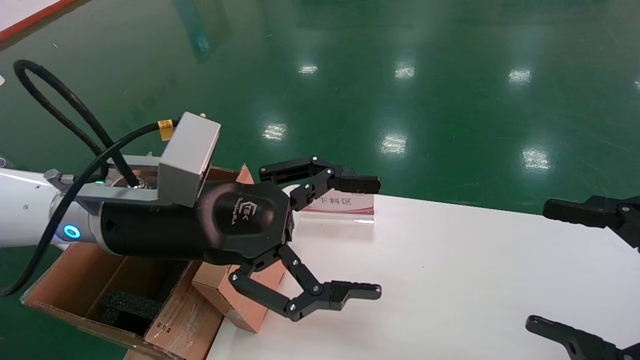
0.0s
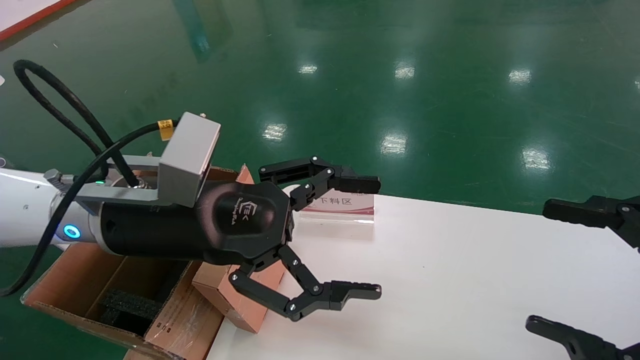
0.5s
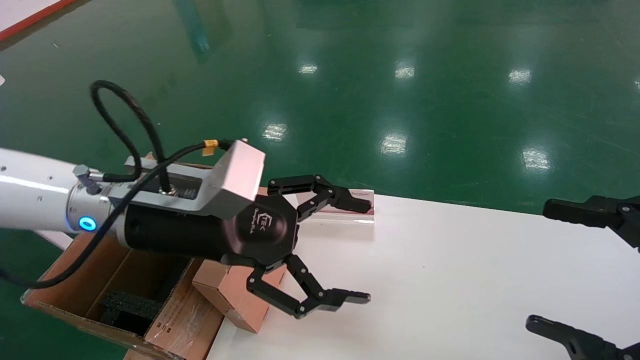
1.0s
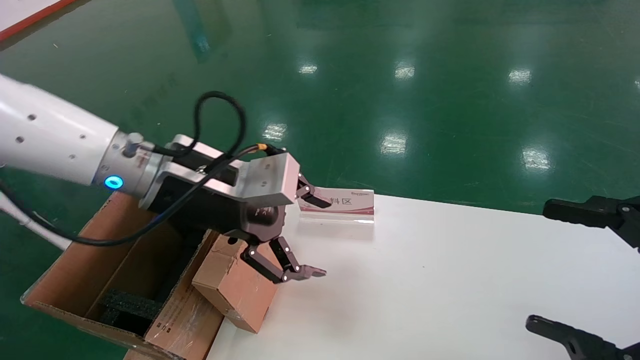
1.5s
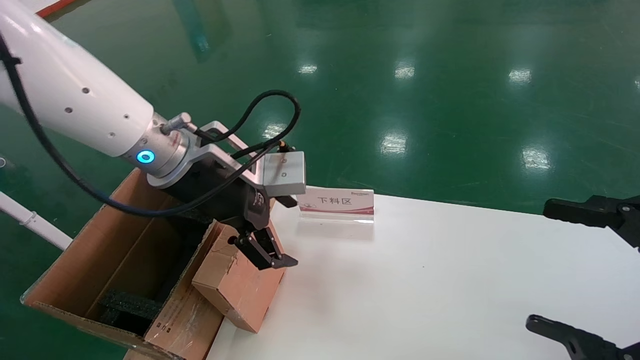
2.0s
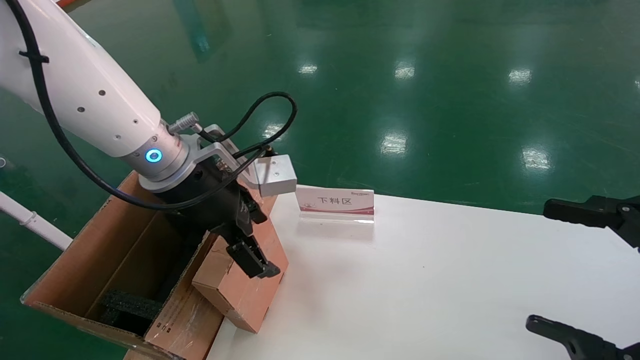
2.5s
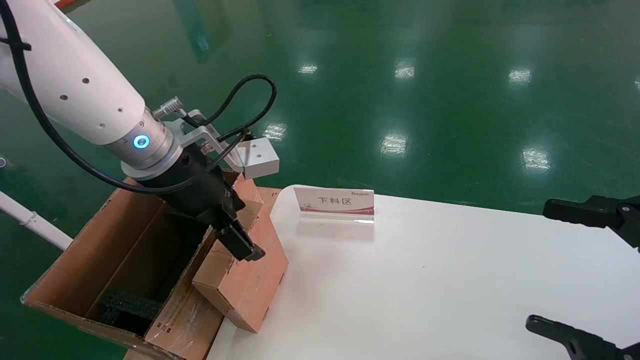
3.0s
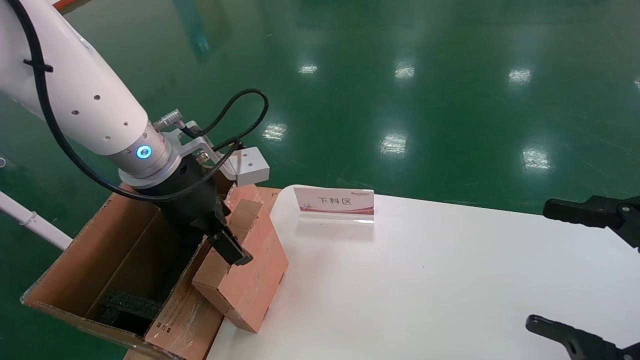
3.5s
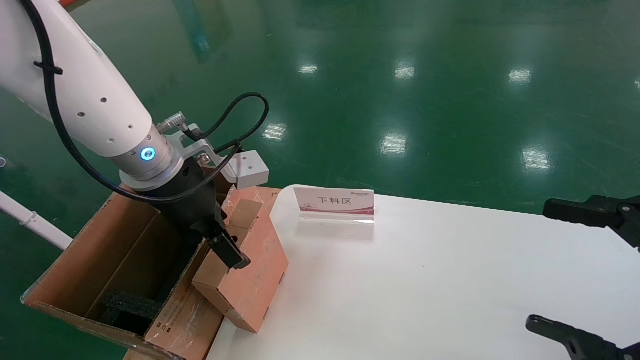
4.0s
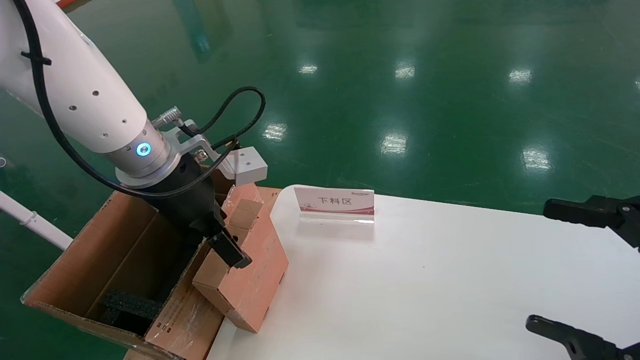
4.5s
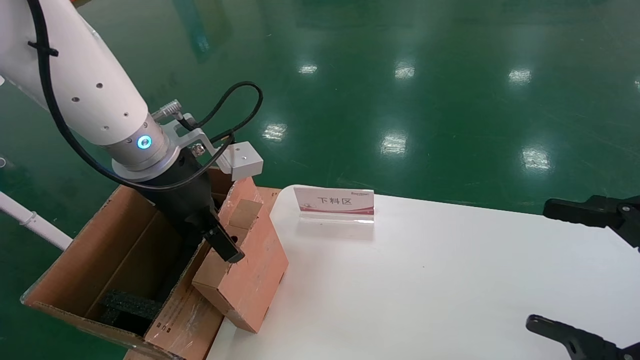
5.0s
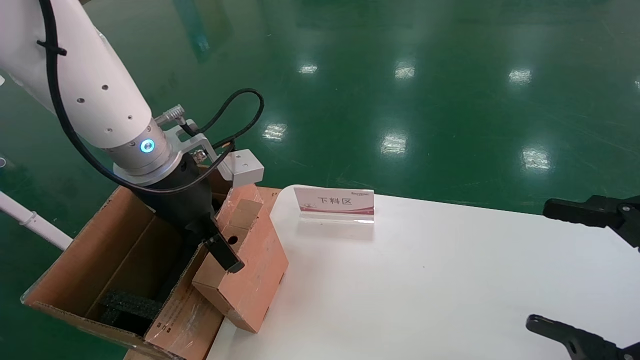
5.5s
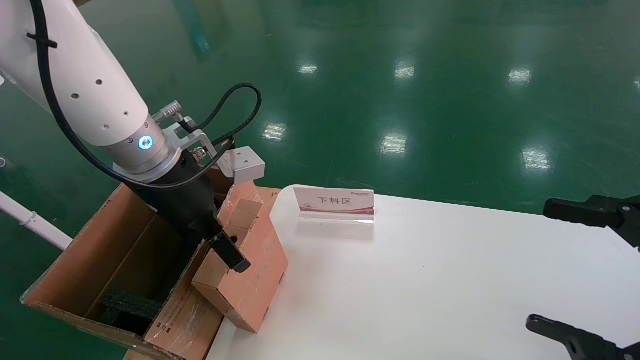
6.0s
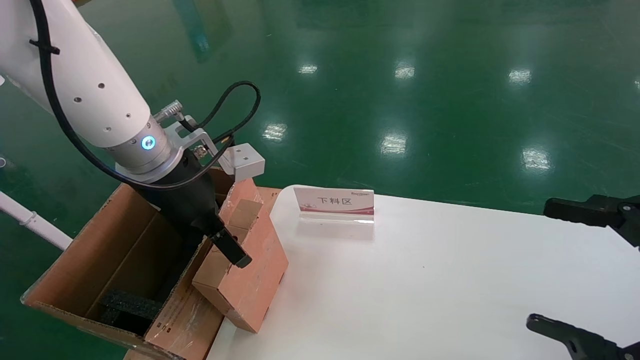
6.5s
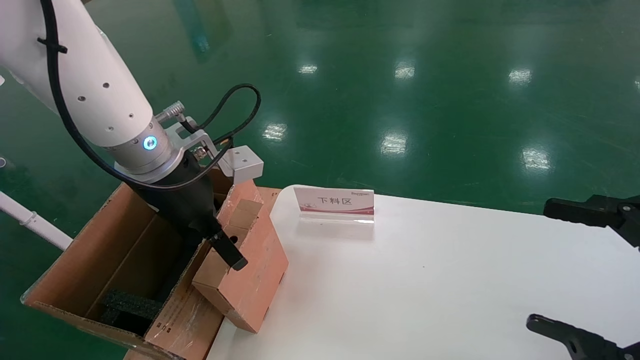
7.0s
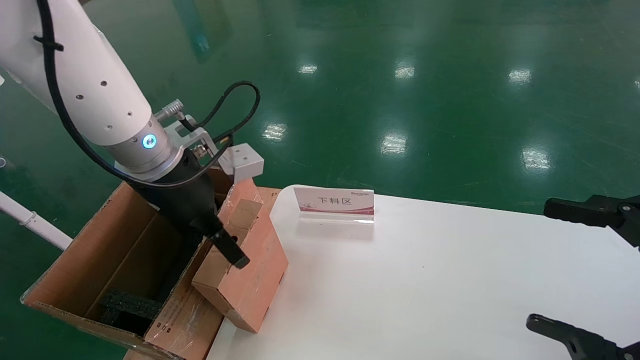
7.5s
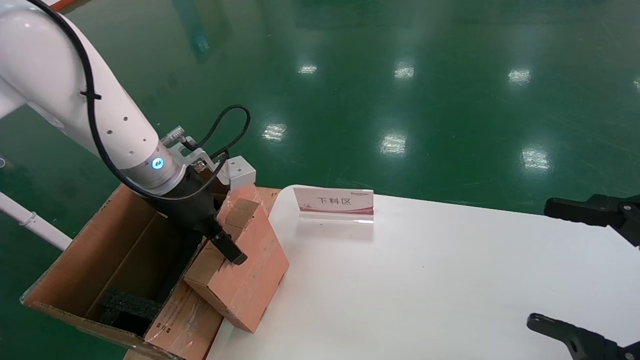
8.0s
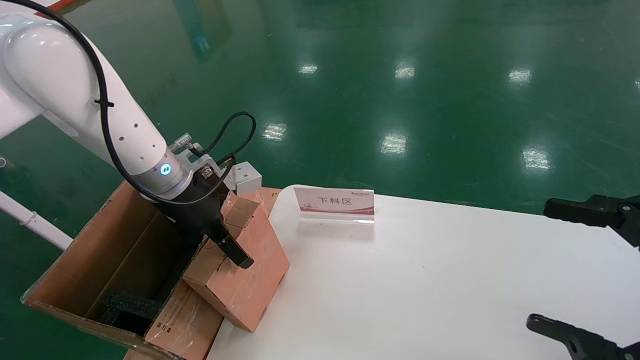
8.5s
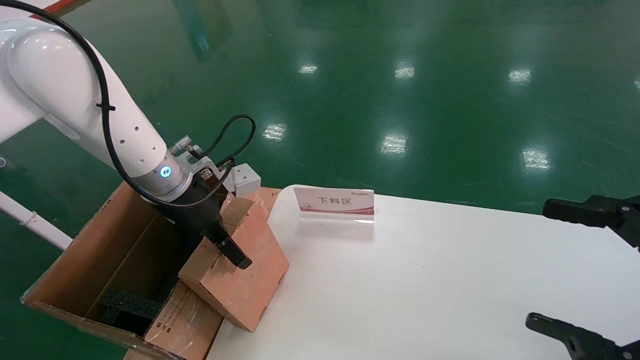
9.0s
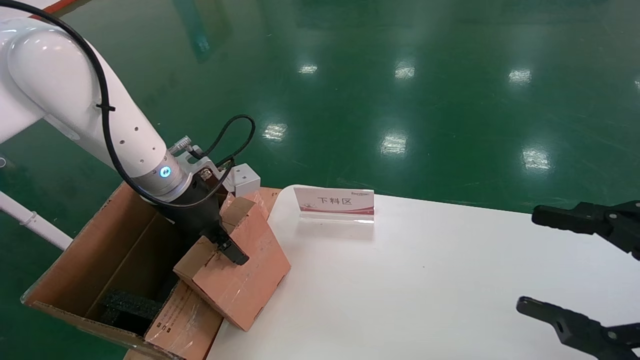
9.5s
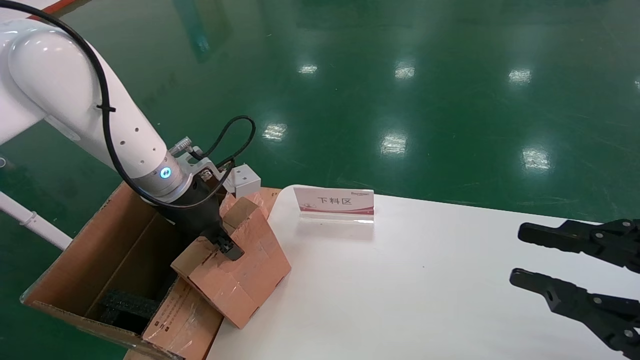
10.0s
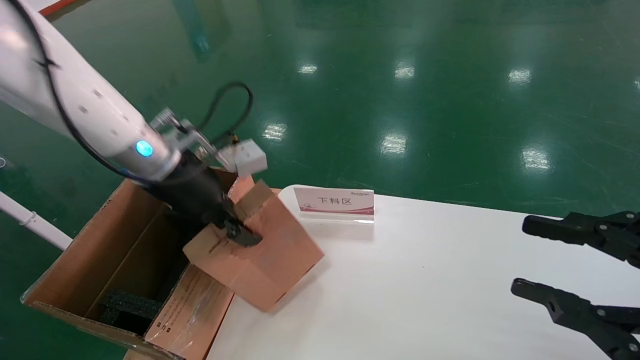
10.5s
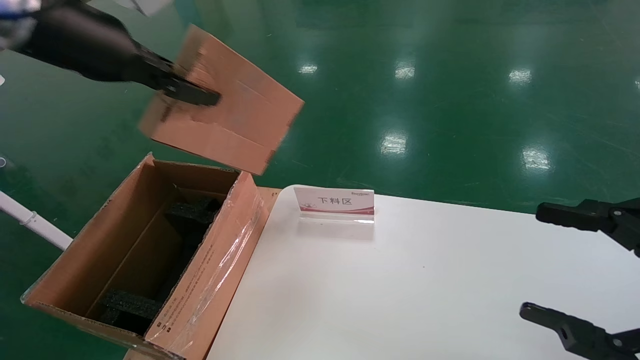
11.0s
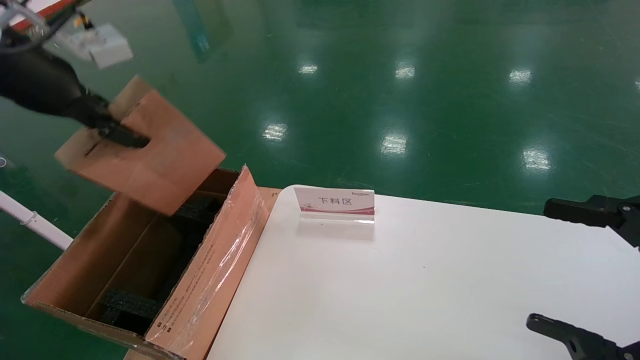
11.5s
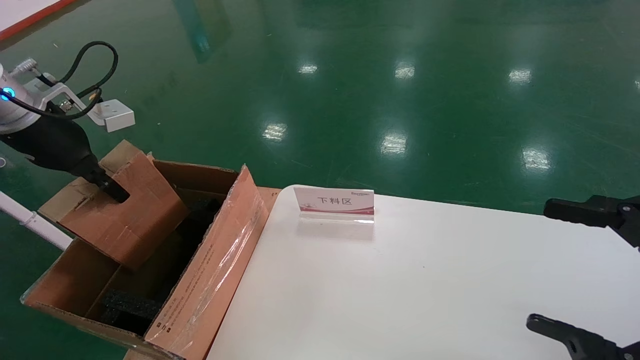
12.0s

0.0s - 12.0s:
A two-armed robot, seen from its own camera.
Task of the whole recording: pick up the small cardboard box and load it into the large cardboard box.
Step, 1.0s - 9.5s: Pick up the mouse and power cord box.
0.0s - 2.0s: The left gripper is displaced forward by some 5 cm.
4.0s - 6.0s: There are only small adjustments of the grippers.
6.0s - 8.0s: The left gripper shifts roughly 10 cm downward and forward.
8.0s - 10.0s: The right gripper closes, while the left gripper closes.
10.0s - 12.0s: The right gripper opens up, while the left gripper shifts approximately 20 cm to the left and upward.

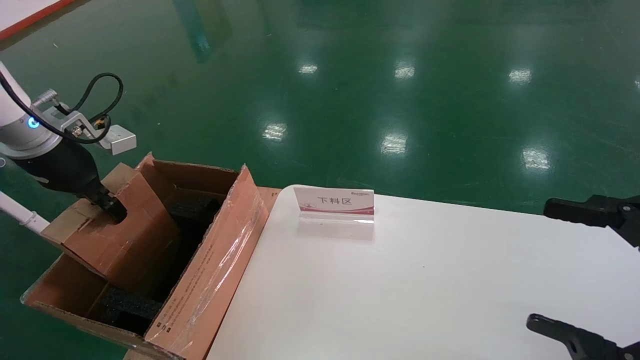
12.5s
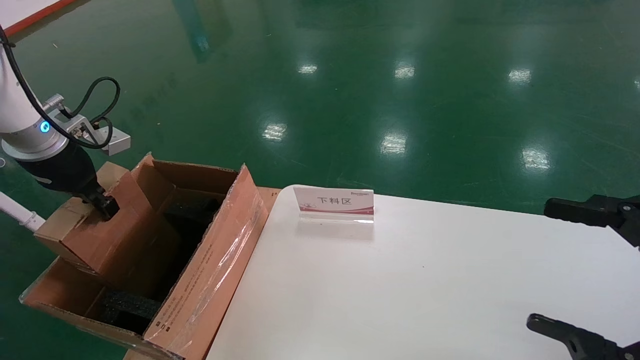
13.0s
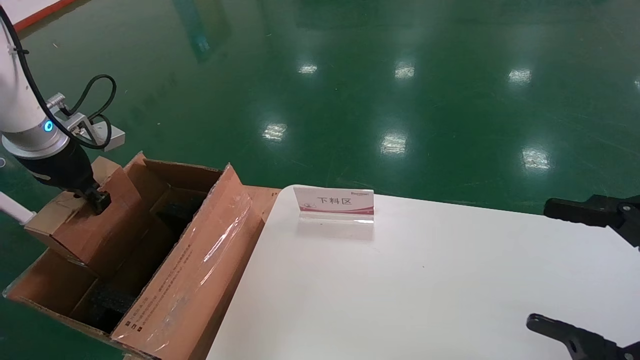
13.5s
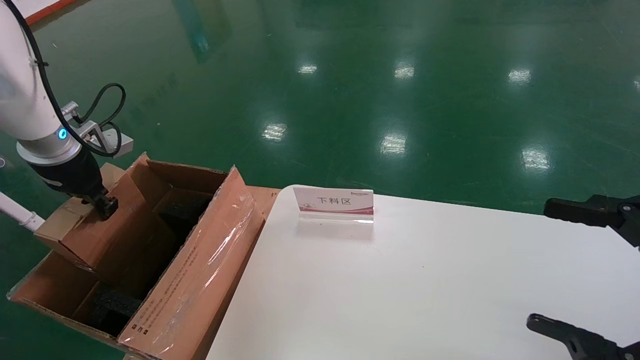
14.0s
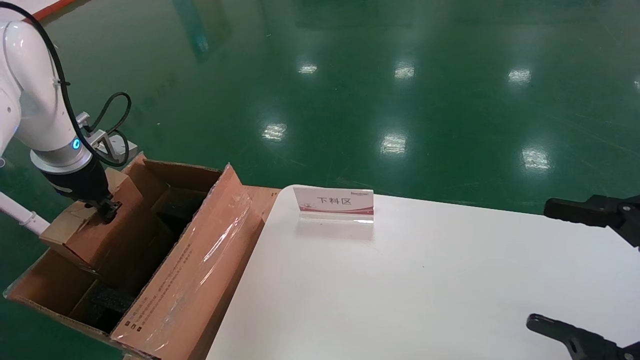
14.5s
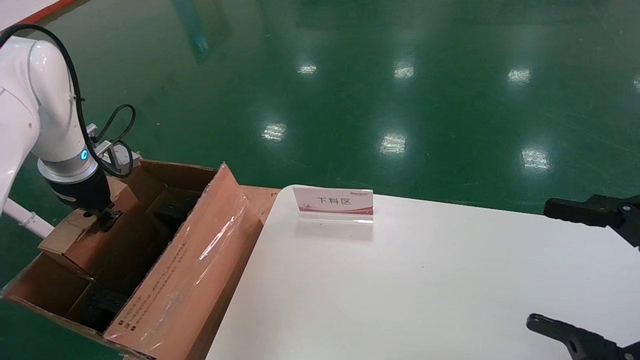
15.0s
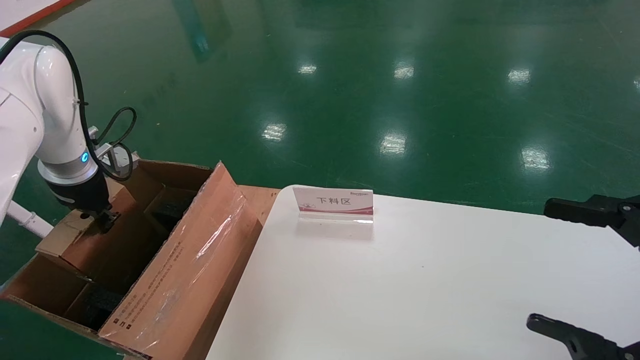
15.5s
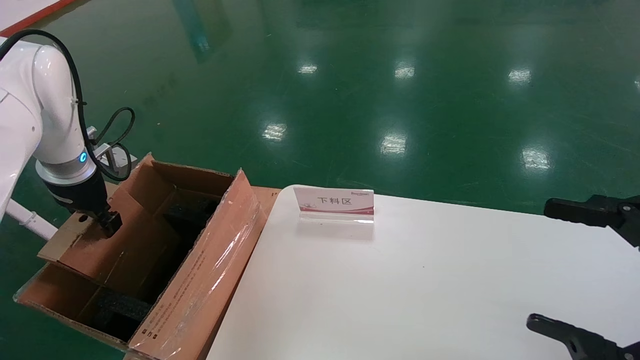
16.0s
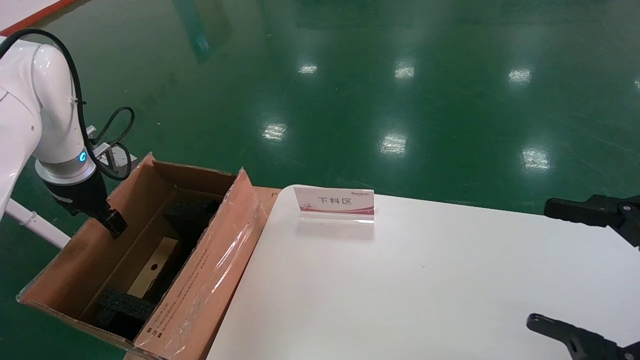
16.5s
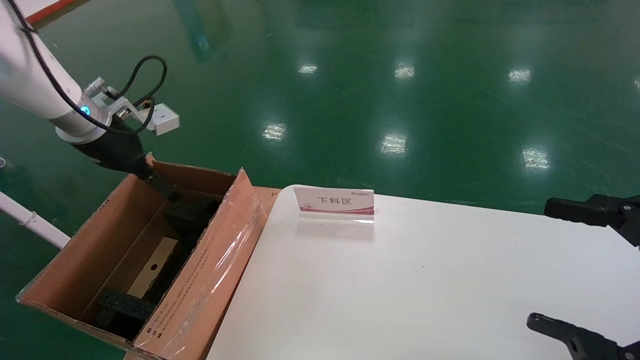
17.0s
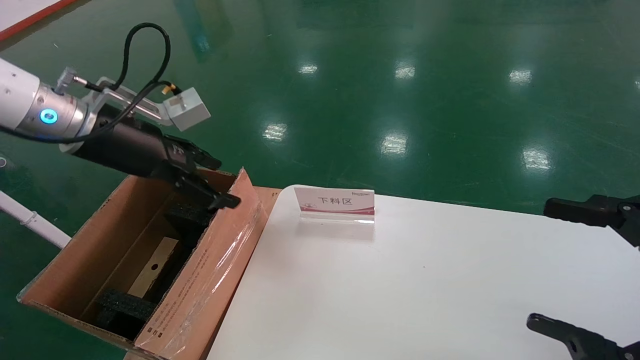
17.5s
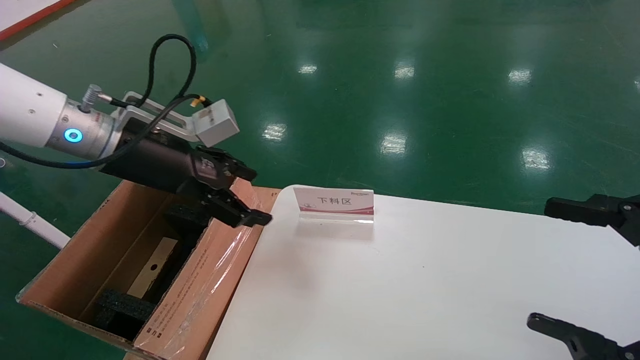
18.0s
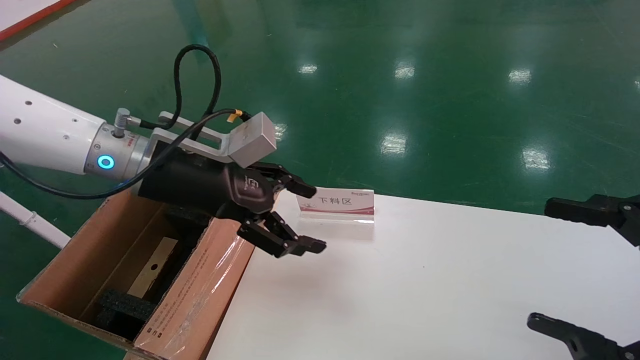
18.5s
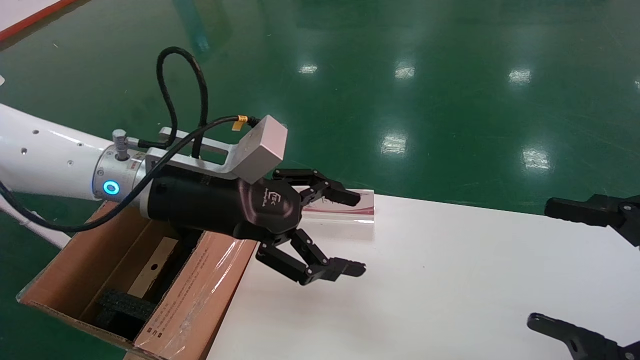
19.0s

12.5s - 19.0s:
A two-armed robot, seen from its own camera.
Task of the whole recording: pick up the small cardboard box and load it into the large cardboard box.
Step, 12.5s - 16.0s: Place the mouse and power cord box into the case.
12.5s - 14.5s: The left gripper shifts by about 5 cm.
14.5s - 17.0s: The left gripper heads to the right, covering roughly 5 cm, and opens up.
17.0s - 19.0s: The left gripper moves to the right and backward, roughly 20 cm.

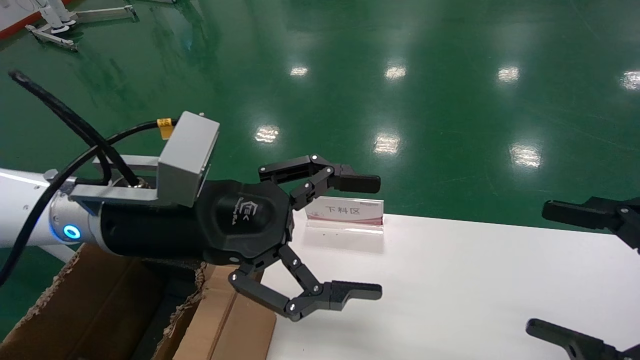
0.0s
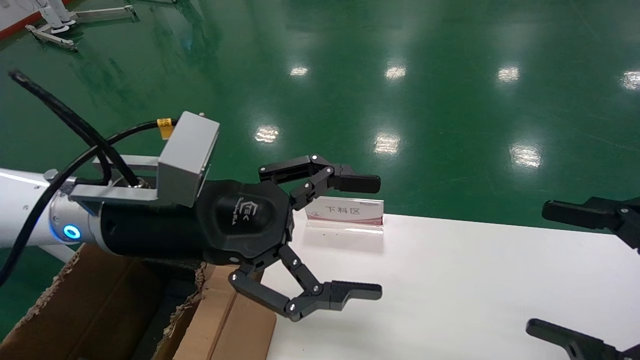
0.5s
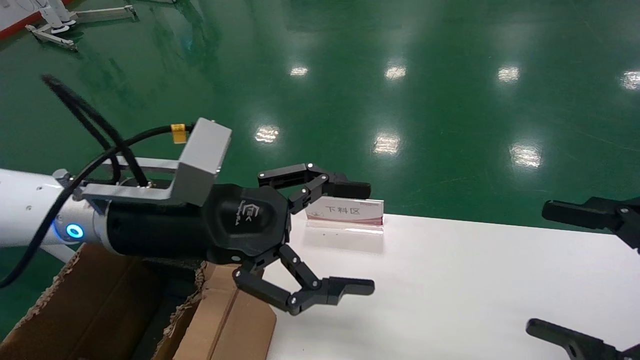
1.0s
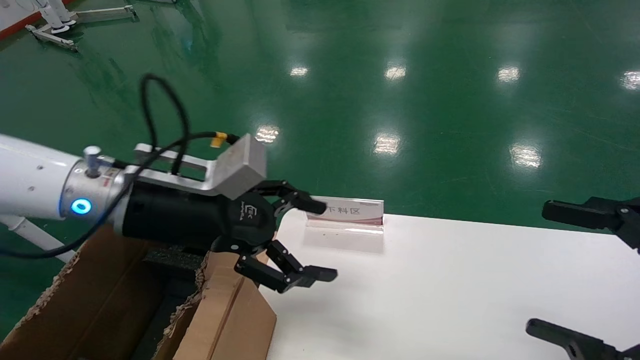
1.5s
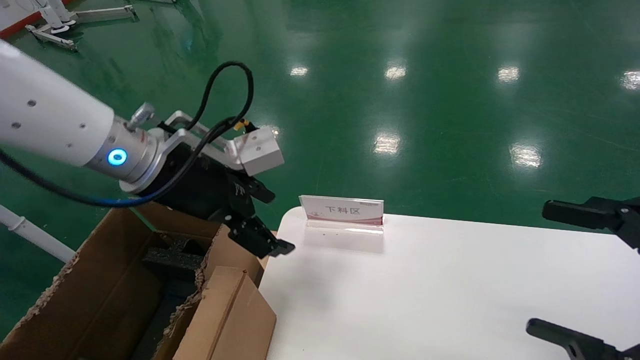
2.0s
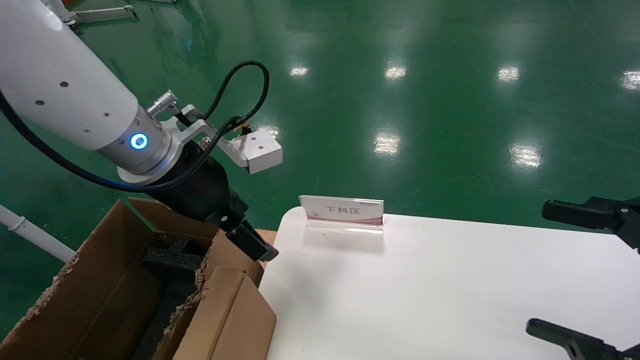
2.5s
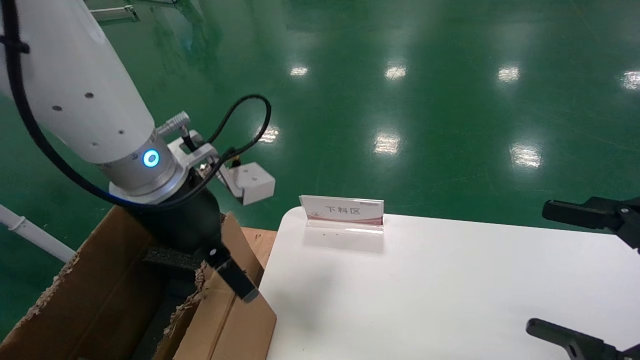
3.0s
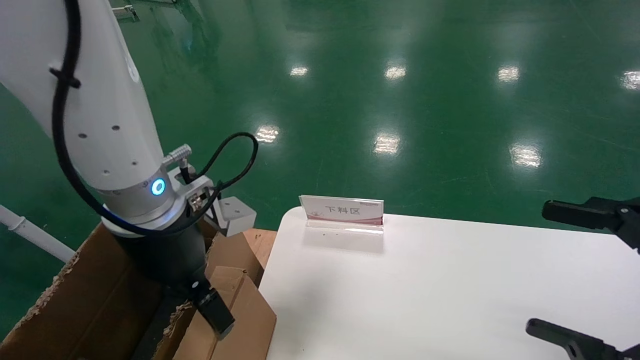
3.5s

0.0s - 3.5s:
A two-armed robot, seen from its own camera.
Task of the whole recording: pick up the small cardboard box and load it into the large cardboard box.
0.0s - 2.0s: The left gripper travels forward by about 5 cm.
2.0s - 3.5s: The left gripper moves roughly 5 cm.
